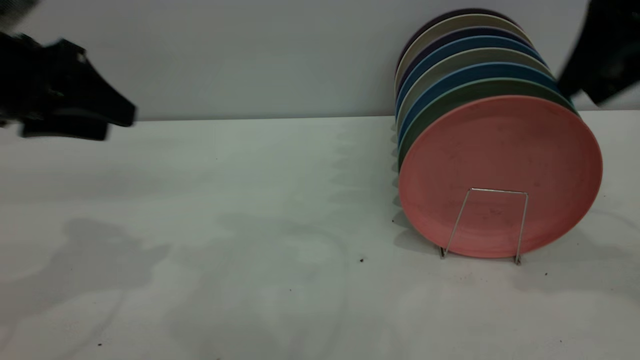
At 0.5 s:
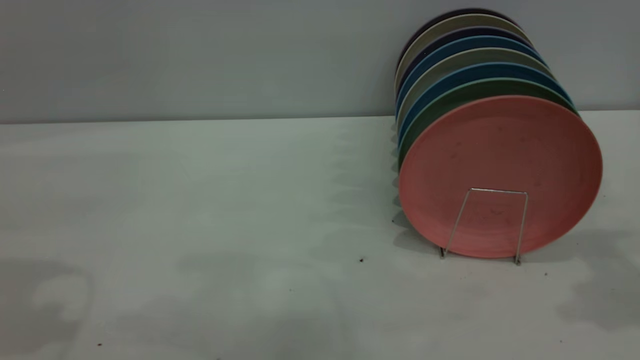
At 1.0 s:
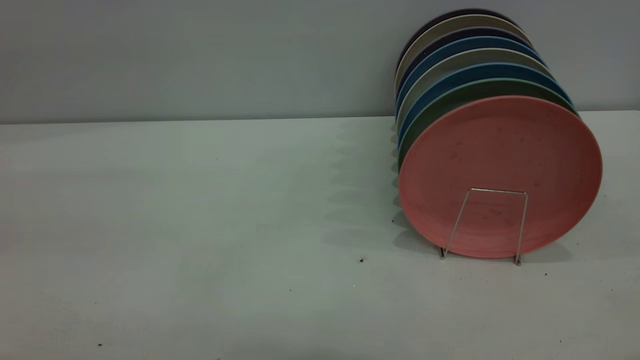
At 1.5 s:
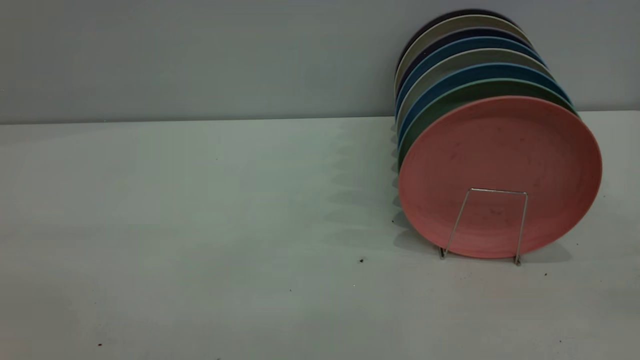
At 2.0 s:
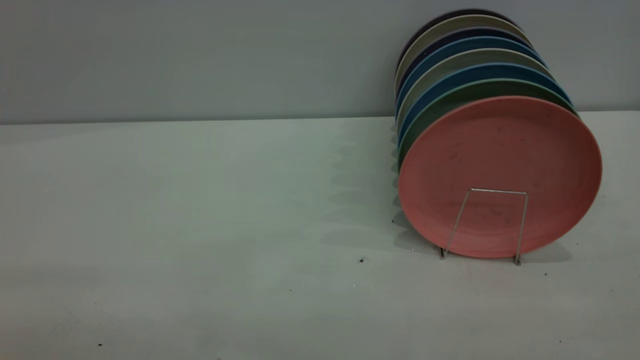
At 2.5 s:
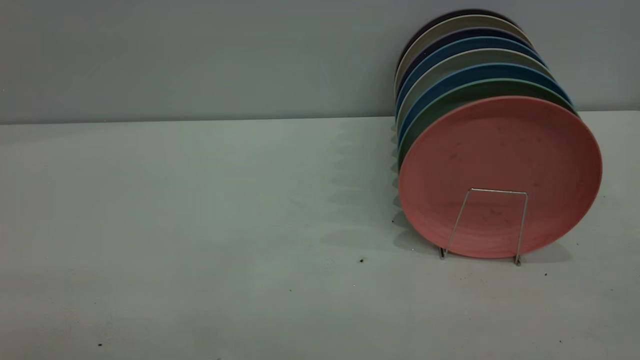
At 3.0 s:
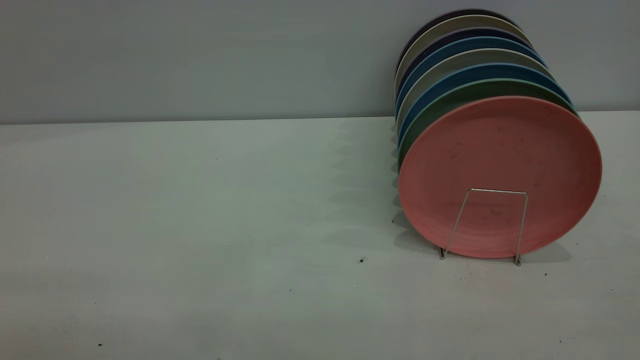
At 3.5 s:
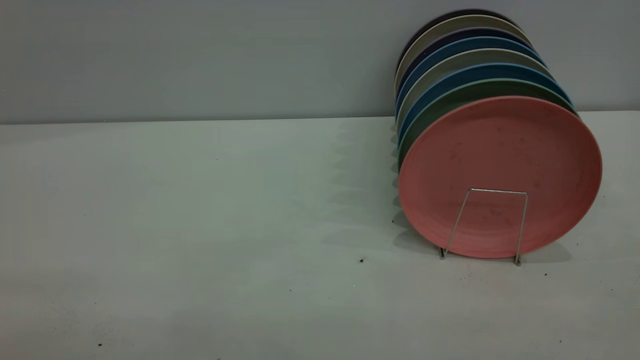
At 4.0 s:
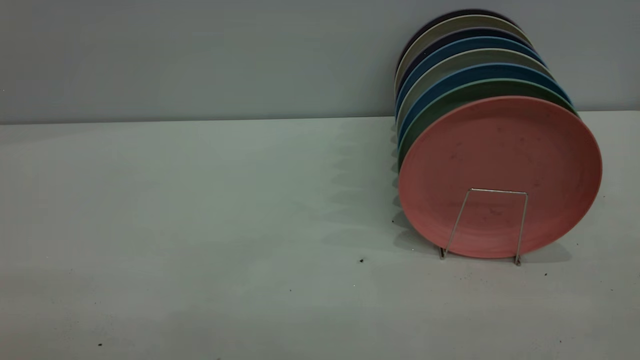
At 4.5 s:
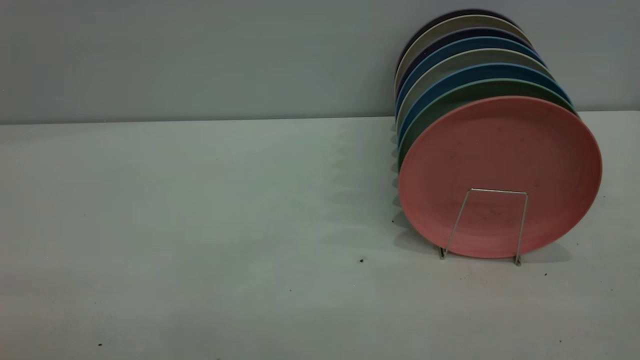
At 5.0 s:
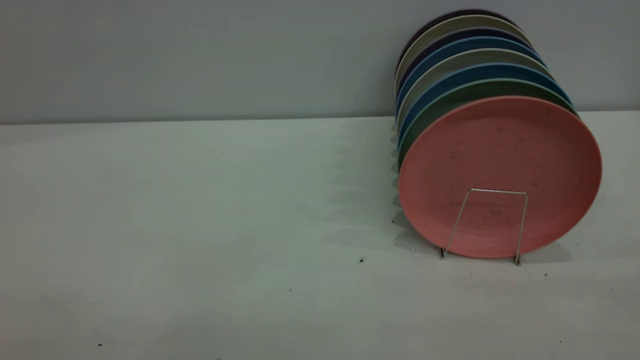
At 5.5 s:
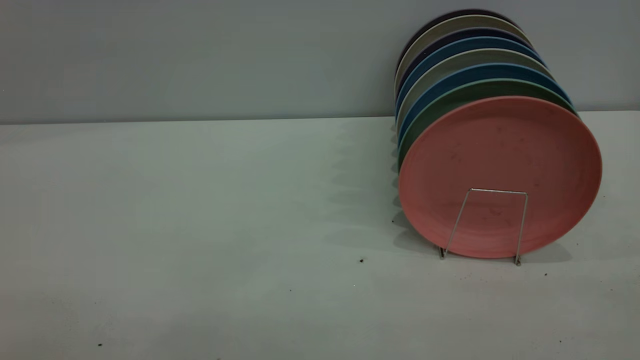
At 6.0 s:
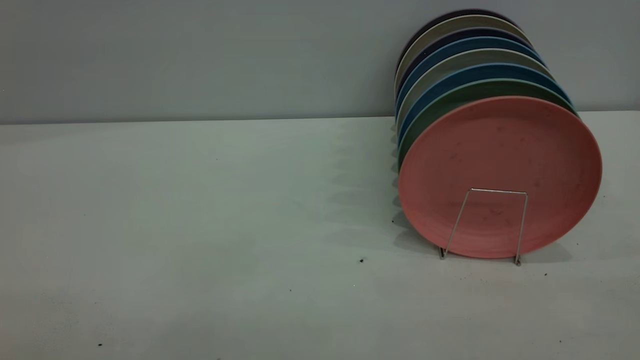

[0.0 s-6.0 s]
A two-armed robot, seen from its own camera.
Task of the whole recording: put the plate on the plate rack.
0.0 to 2.0 s: The two grippers go about 30 cm backward.
